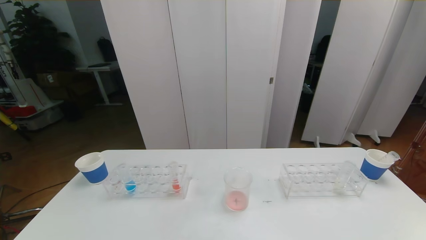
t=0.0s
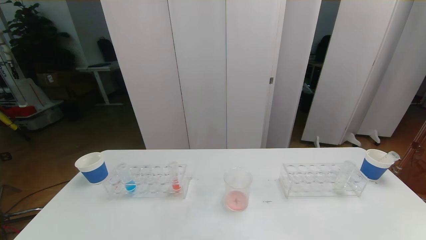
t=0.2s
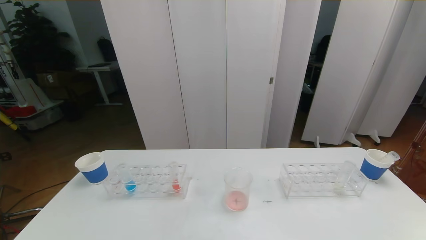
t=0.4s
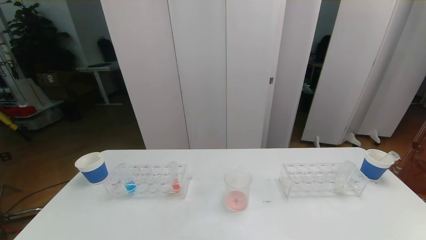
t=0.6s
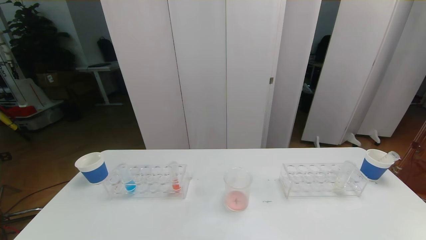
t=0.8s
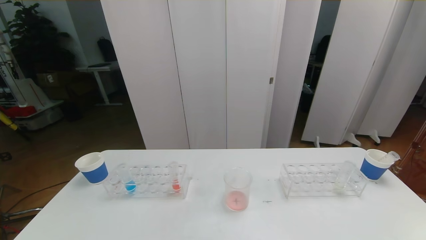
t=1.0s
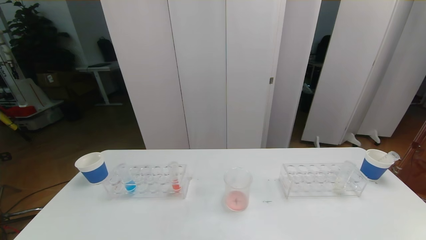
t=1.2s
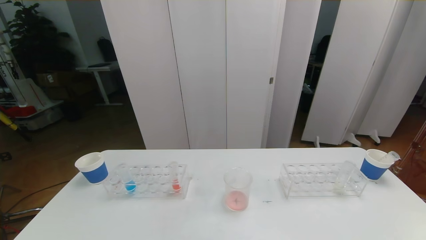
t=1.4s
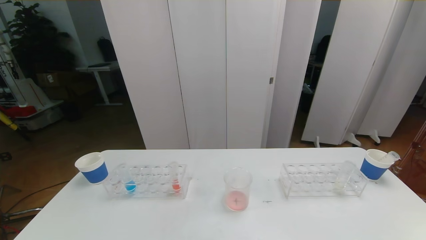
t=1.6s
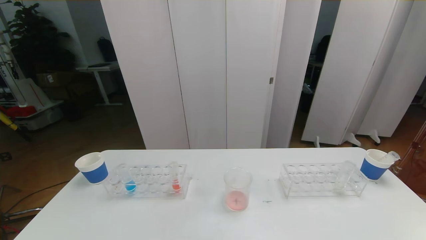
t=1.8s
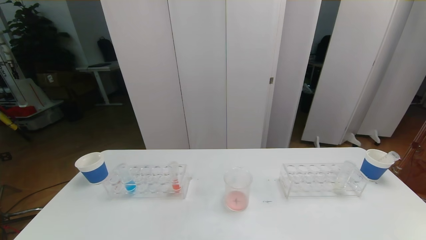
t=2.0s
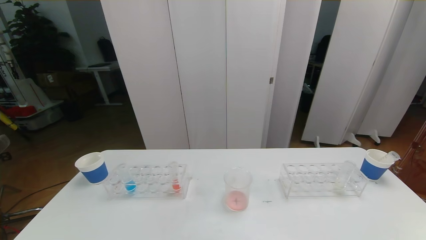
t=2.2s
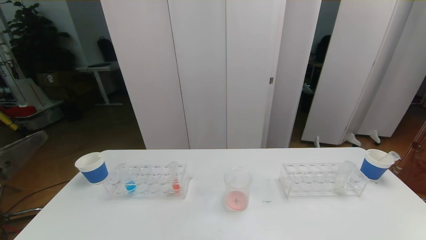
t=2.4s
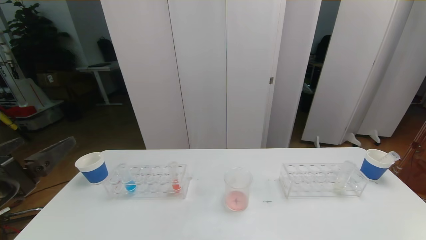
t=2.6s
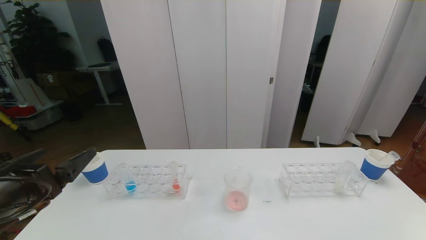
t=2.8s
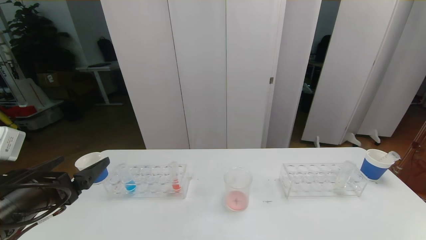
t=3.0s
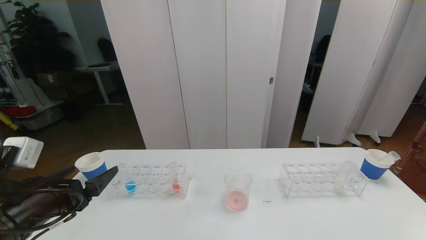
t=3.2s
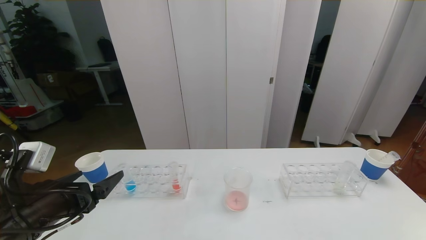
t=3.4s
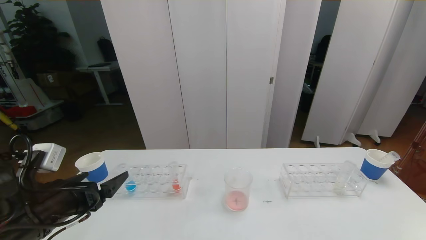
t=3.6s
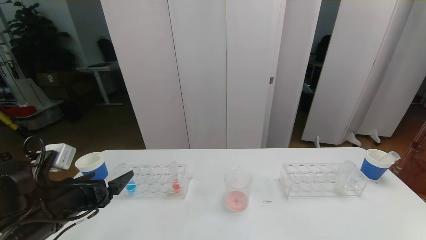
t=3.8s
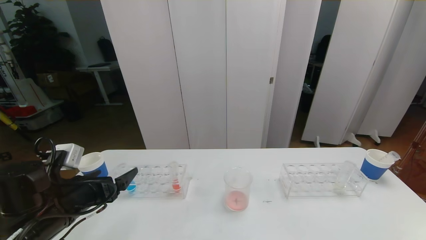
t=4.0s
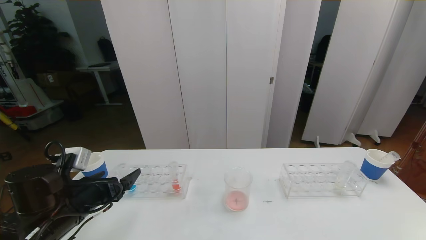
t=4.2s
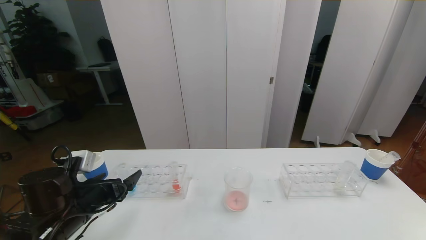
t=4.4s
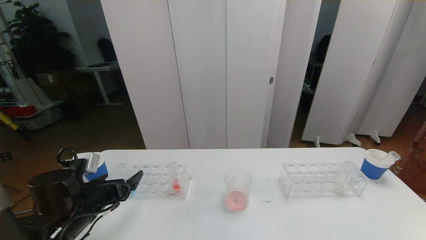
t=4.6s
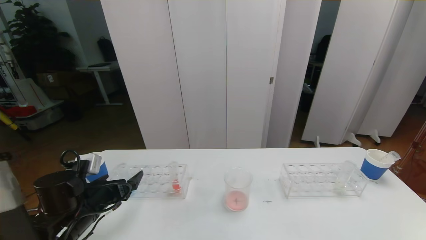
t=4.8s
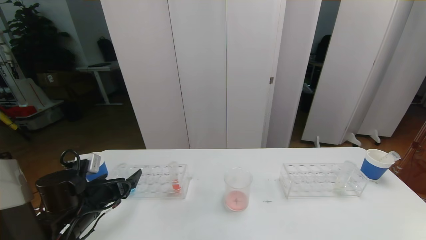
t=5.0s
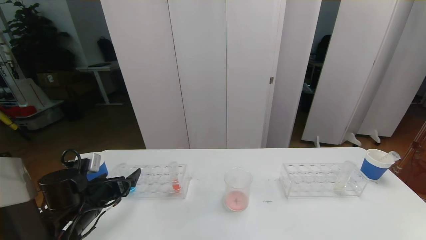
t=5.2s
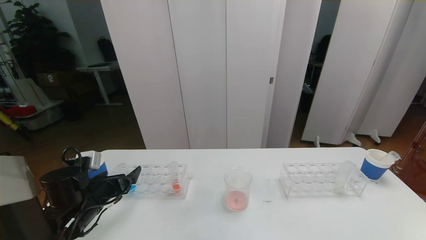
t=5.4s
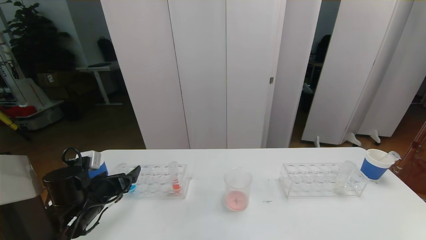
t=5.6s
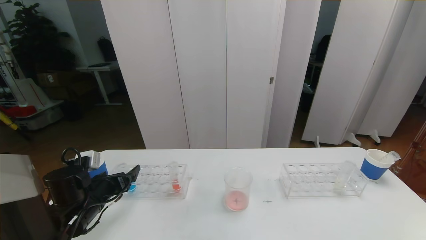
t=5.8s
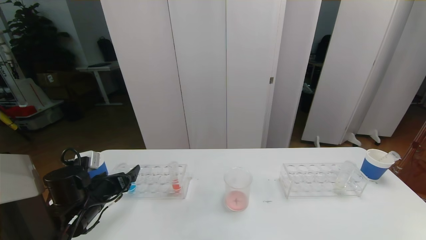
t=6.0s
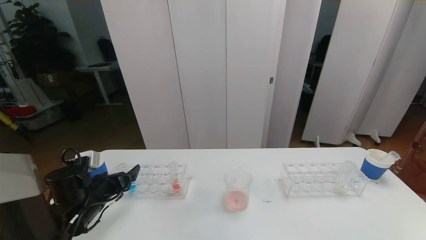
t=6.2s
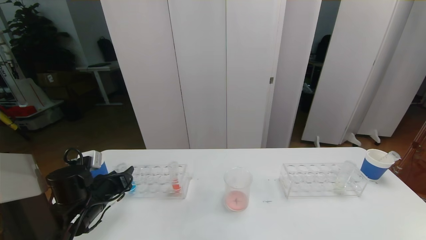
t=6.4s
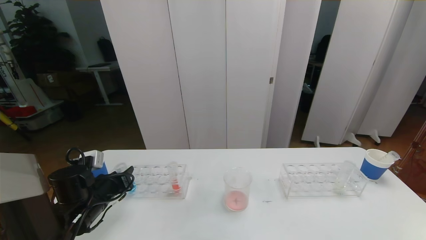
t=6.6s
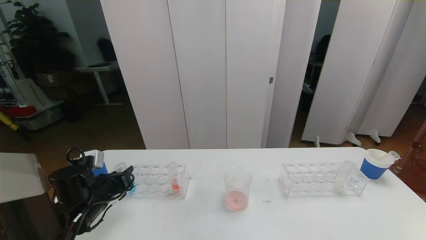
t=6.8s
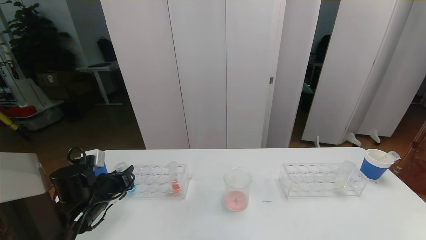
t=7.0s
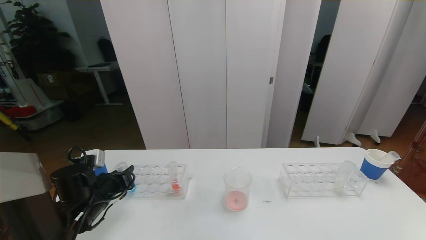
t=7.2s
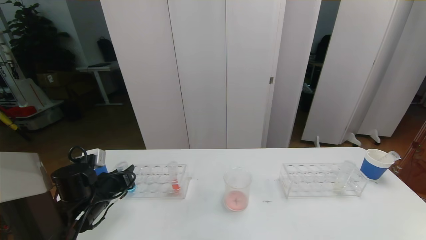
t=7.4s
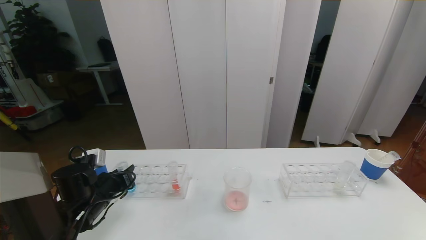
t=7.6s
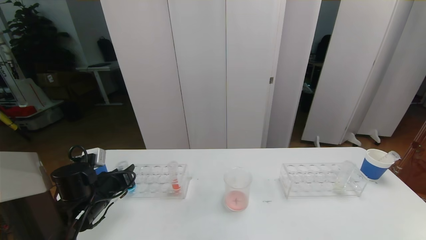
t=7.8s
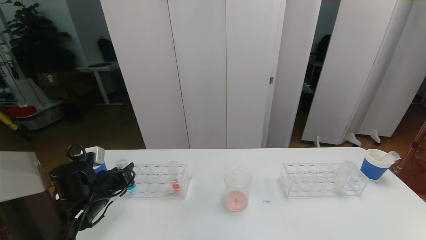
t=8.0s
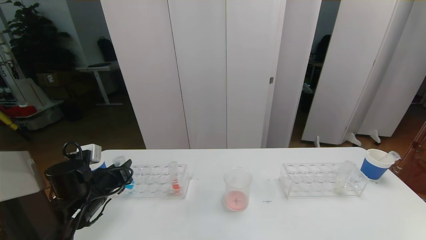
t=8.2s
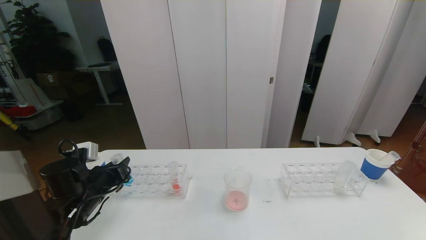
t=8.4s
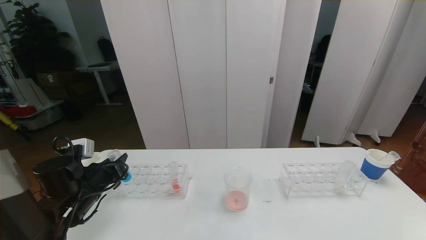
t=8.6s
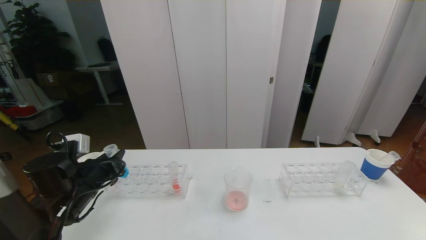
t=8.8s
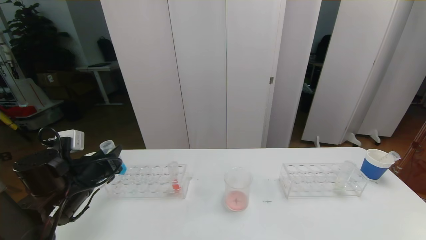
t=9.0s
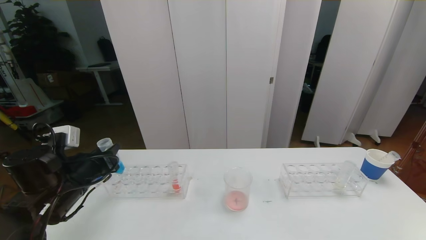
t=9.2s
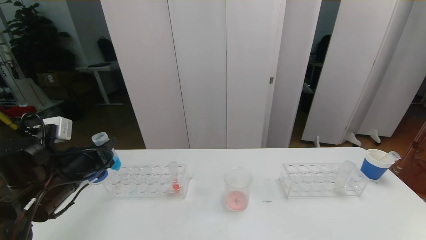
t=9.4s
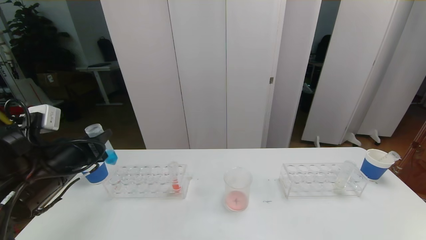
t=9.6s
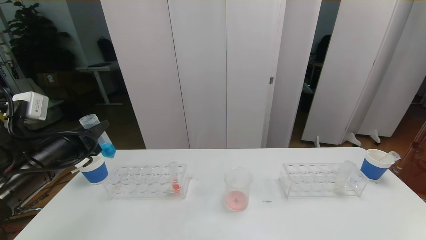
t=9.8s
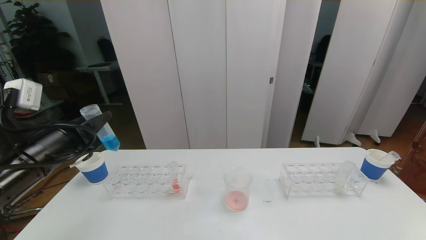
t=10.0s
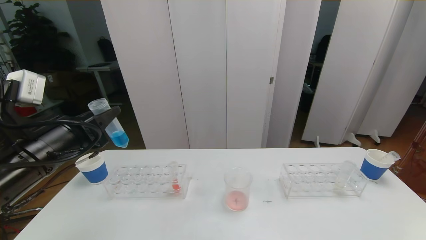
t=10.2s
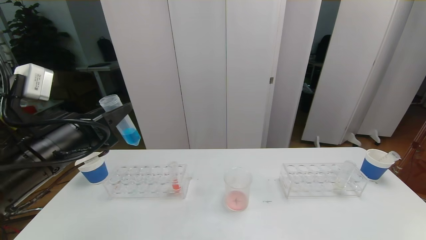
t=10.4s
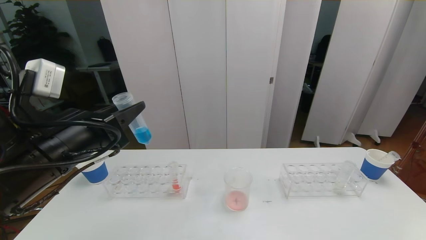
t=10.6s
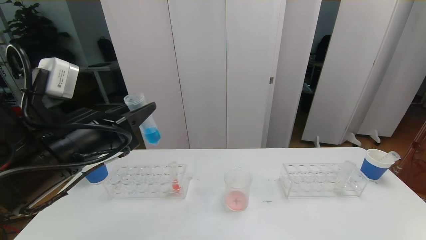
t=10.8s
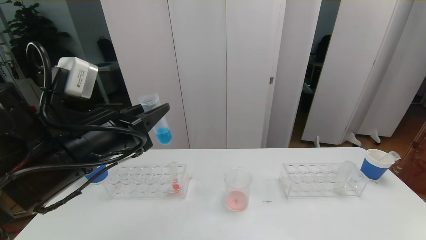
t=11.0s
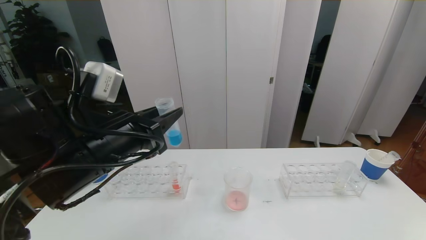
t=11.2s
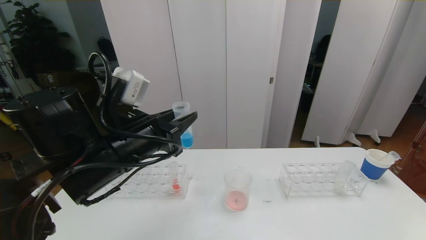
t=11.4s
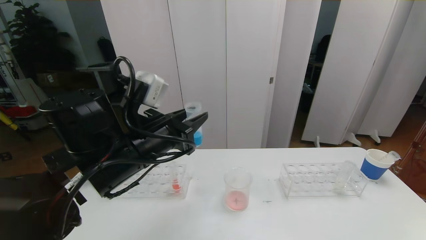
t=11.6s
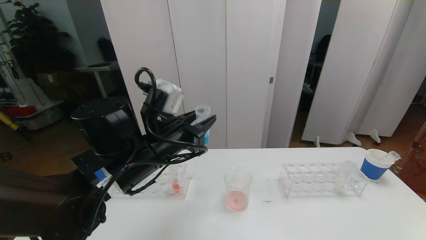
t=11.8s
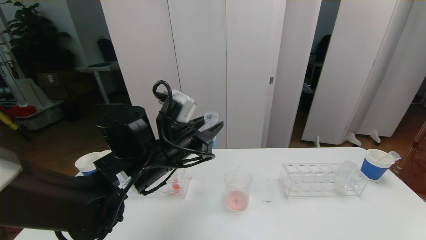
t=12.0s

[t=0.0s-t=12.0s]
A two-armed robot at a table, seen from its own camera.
Task of the whole recording: pick up the test tube with red pigment the test tube with blue pigment and the test tube with white pigment by grippers and pour them into the beaker.
Step, t=0.0s to t=6.4s: Grasp the blue reagent with the left gripper.
t=1.6s to t=3.0s: The left gripper shifts roughly 20 cm forward.
t=3.0s to t=4.4s: The left gripper travels downward and forward by approximately 10 cm.
t=4.4s to t=6.0s: The left gripper shifts by roughly 5 cm.
t=6.0s to t=7.6s: The left gripper closes up.
t=7.6s to t=9.0s: The left gripper shifts about 5 cm upward.
t=9.0s to t=10.4s: The left gripper goes roughly 15 cm upward, backward and to the right.
t=10.4s to t=12.0s: The left gripper is displaced to the right and forward by roughly 15 cm.

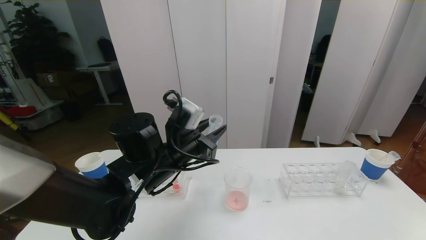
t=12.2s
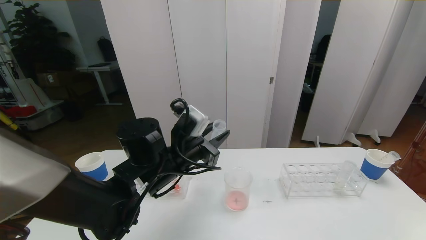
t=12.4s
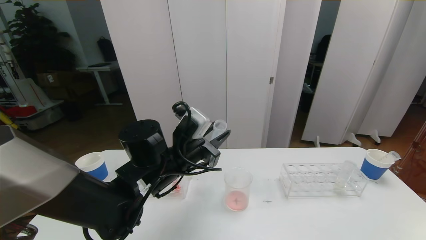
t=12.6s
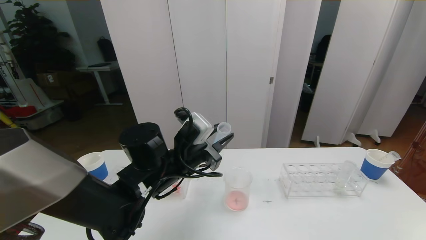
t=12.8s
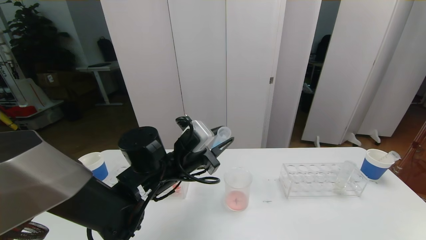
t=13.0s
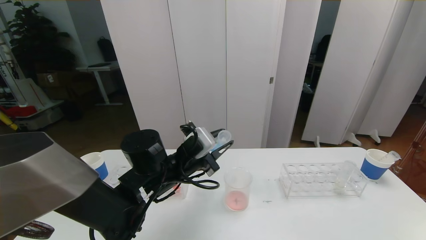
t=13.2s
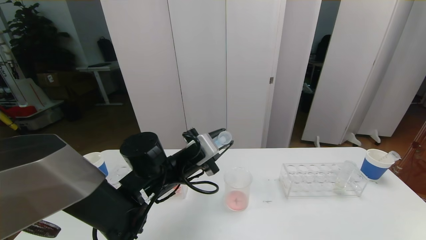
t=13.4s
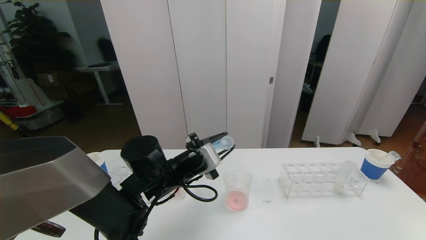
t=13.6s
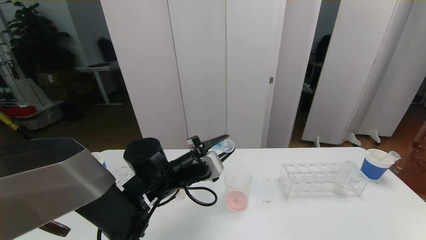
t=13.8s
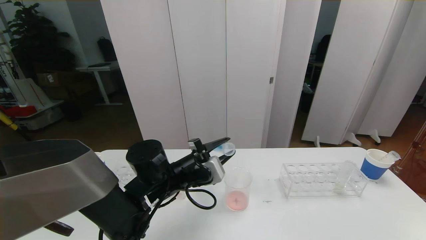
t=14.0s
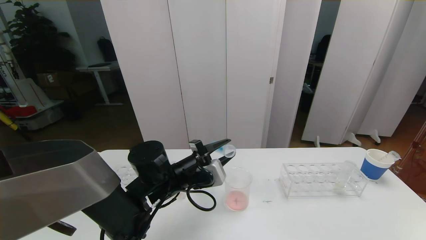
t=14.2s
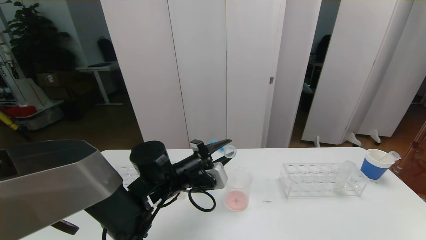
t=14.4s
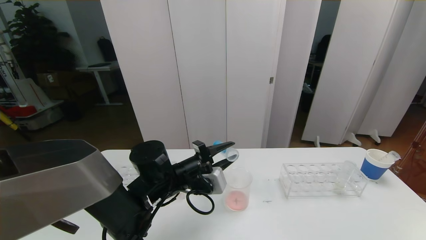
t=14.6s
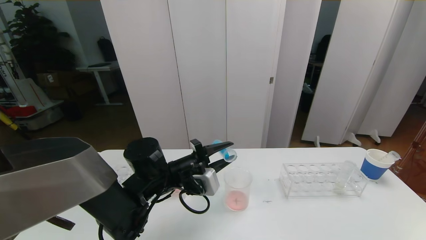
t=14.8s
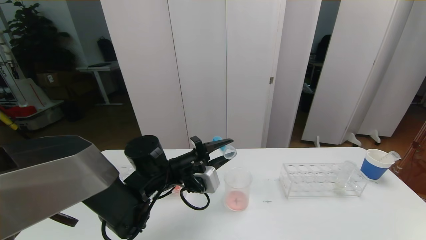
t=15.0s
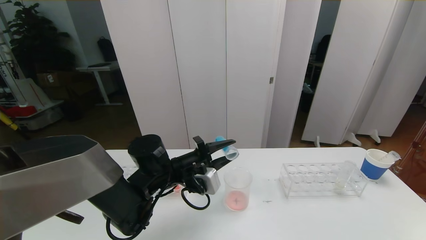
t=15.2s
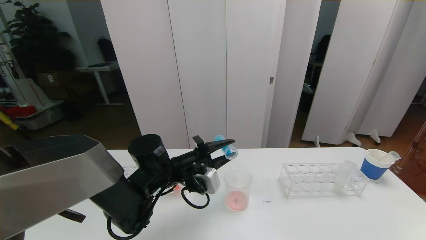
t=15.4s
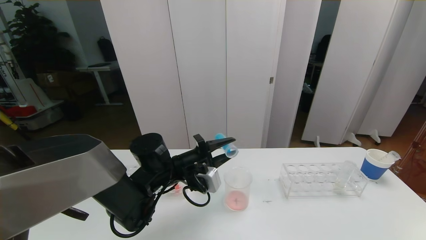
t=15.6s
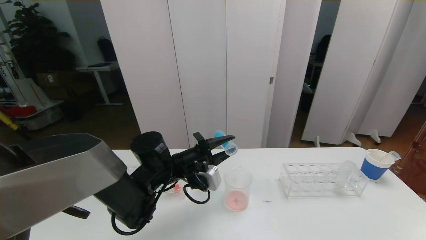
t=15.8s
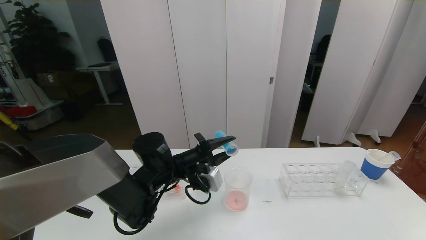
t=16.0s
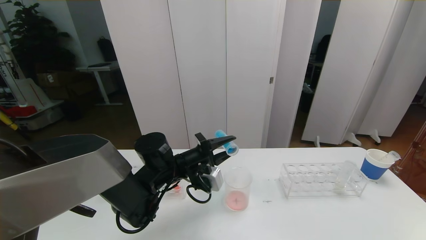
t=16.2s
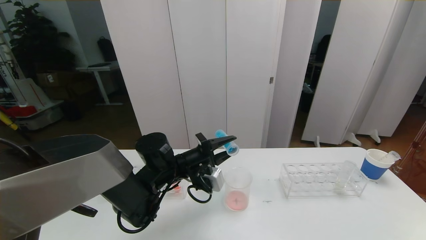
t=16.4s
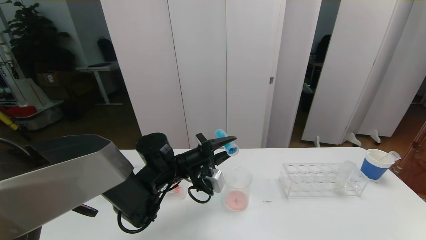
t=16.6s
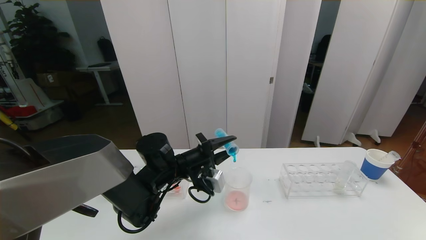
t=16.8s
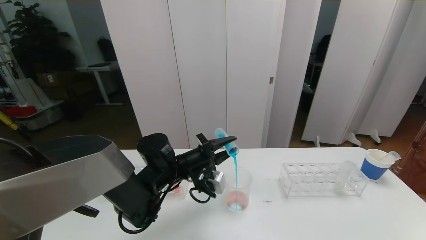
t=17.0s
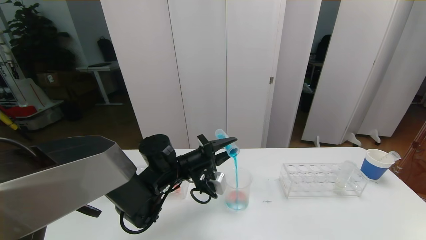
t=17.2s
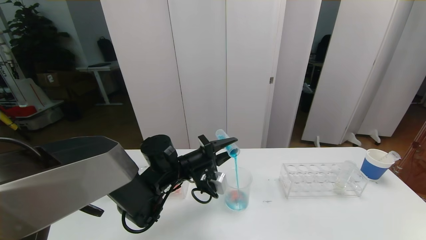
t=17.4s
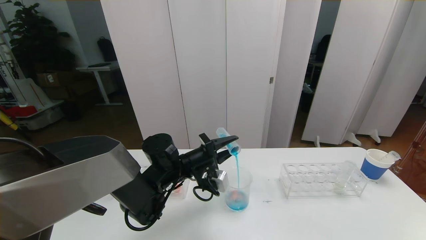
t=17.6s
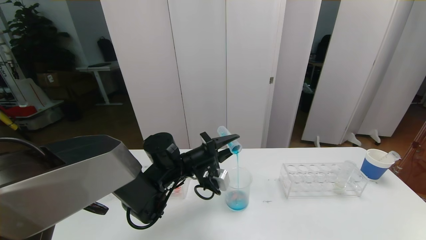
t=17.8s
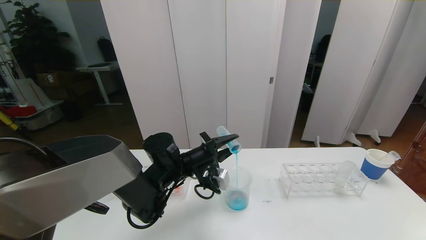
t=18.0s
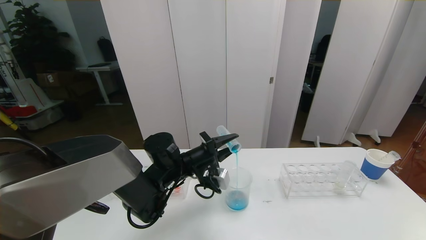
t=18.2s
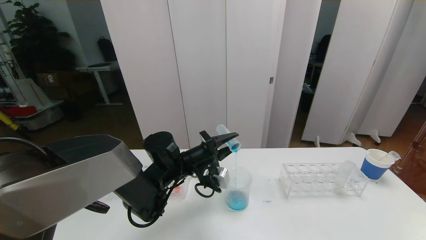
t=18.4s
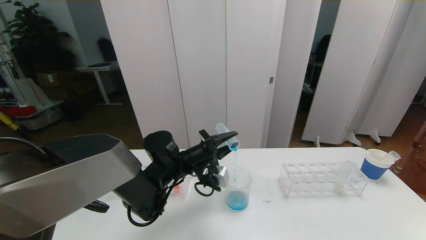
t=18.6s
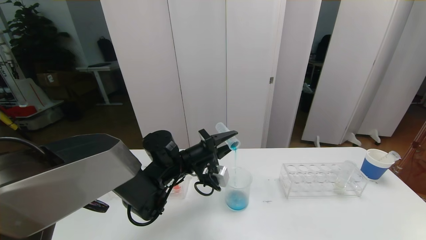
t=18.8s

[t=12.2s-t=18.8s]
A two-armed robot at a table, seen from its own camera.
Task of the whole recording: pick up the test tube with red pigment the test tube with blue pigment and the test tube with white pigment by grippers and pour them into the beaker.
t=12.2s to t=13.8s: The left gripper heads downward, covering some 5 cm.
t=15.4s to t=17.2s: The grippers make only small movements.
t=17.2s to t=18.8s: Neither gripper changes place.
